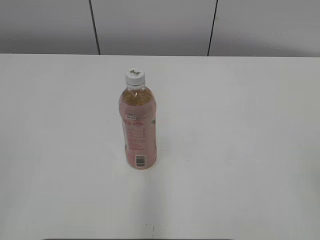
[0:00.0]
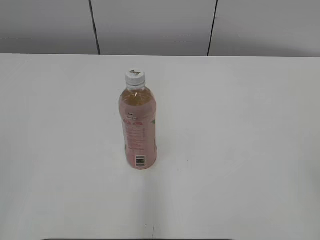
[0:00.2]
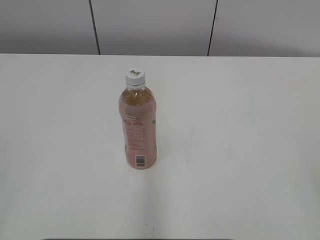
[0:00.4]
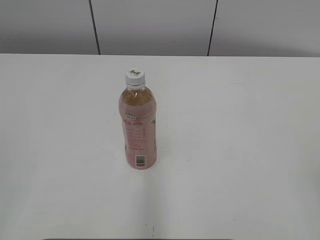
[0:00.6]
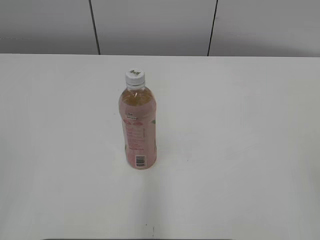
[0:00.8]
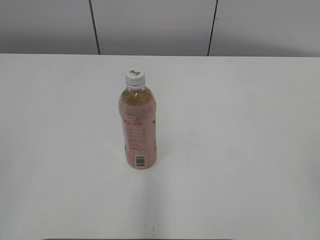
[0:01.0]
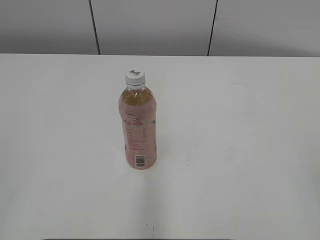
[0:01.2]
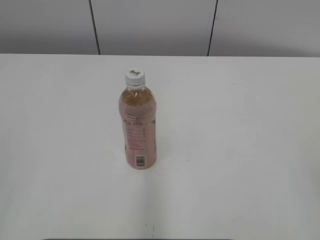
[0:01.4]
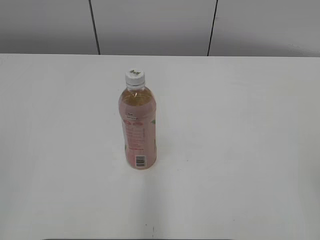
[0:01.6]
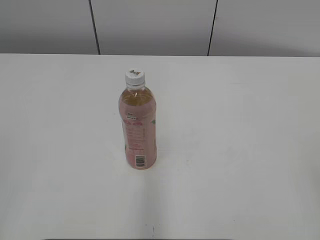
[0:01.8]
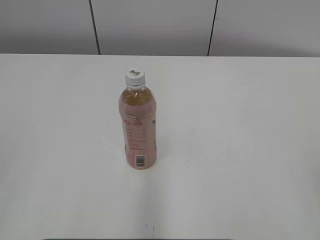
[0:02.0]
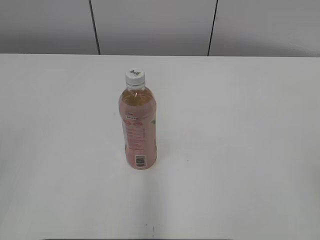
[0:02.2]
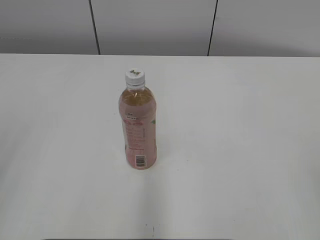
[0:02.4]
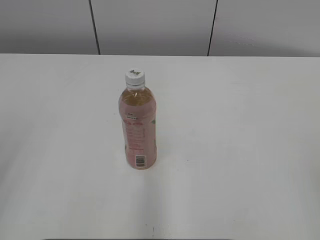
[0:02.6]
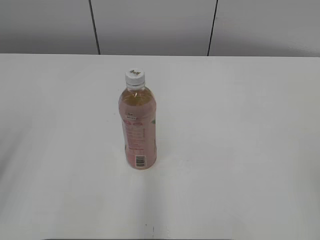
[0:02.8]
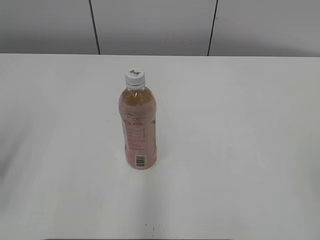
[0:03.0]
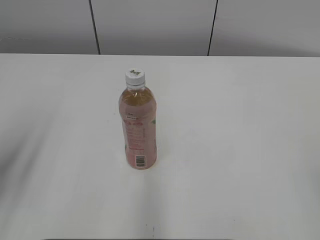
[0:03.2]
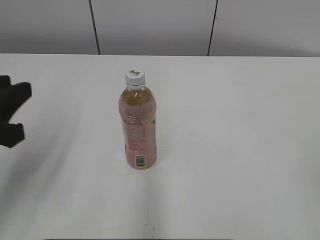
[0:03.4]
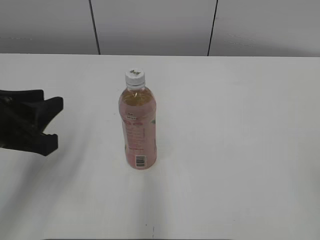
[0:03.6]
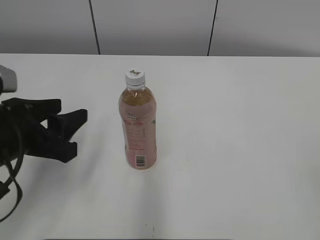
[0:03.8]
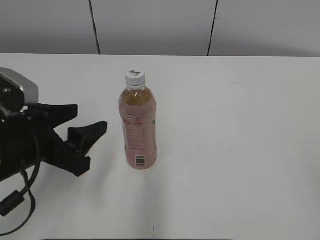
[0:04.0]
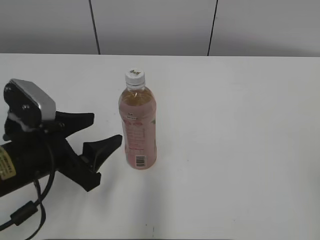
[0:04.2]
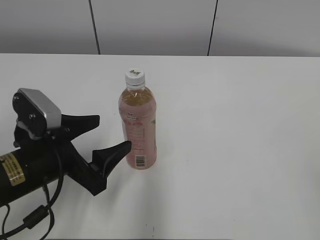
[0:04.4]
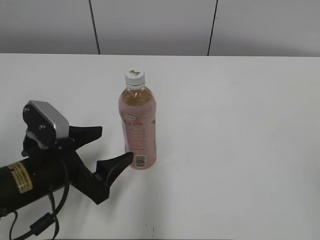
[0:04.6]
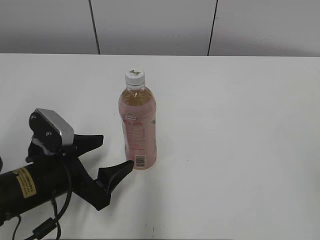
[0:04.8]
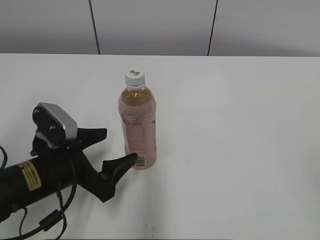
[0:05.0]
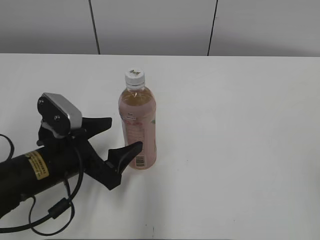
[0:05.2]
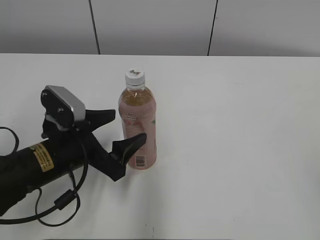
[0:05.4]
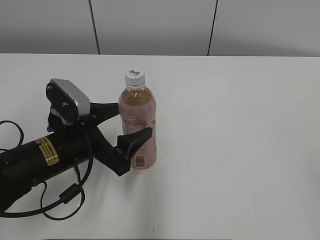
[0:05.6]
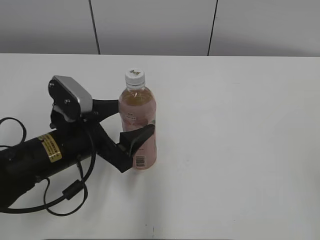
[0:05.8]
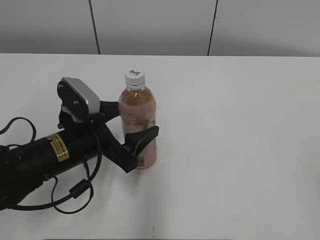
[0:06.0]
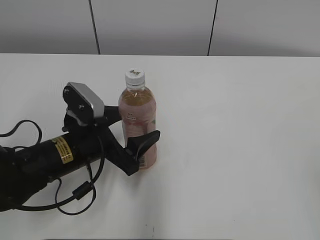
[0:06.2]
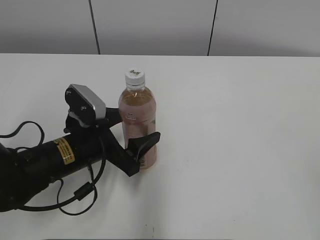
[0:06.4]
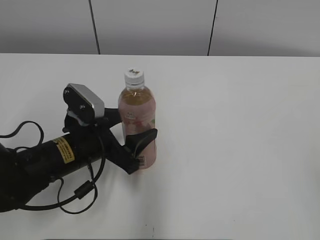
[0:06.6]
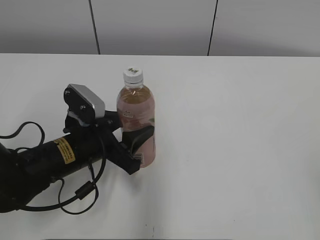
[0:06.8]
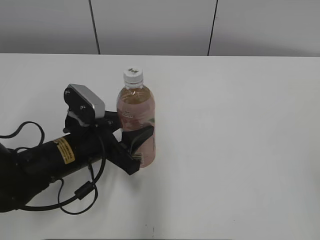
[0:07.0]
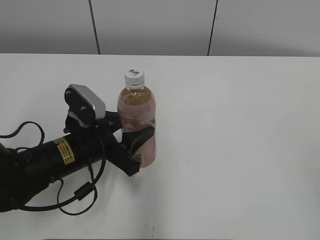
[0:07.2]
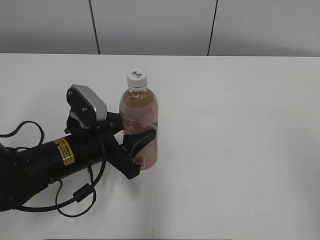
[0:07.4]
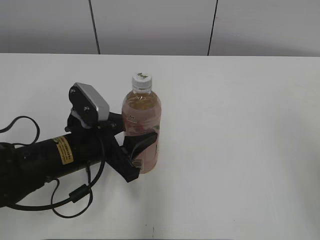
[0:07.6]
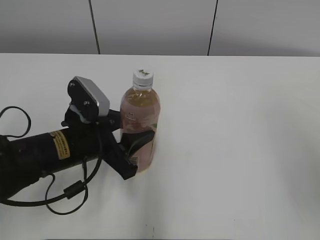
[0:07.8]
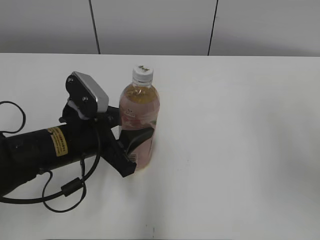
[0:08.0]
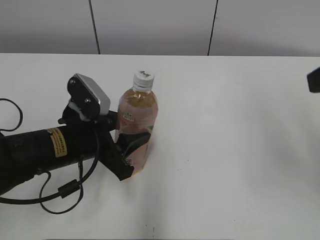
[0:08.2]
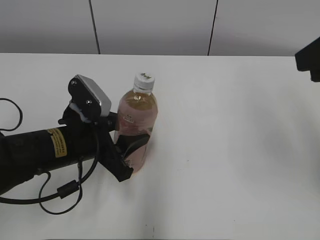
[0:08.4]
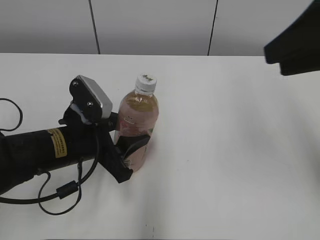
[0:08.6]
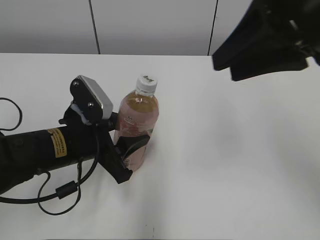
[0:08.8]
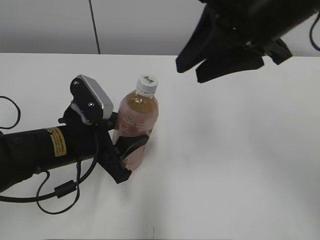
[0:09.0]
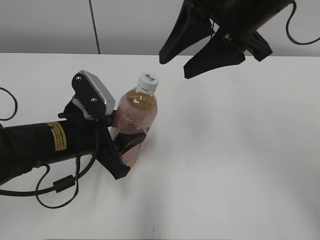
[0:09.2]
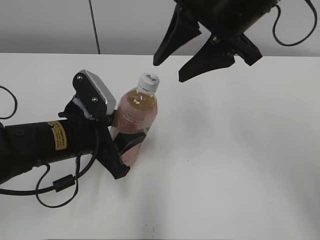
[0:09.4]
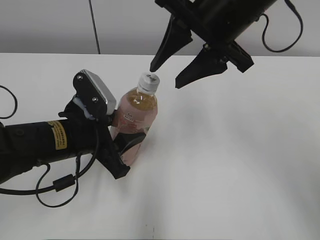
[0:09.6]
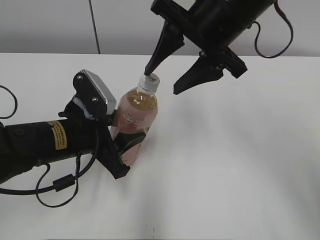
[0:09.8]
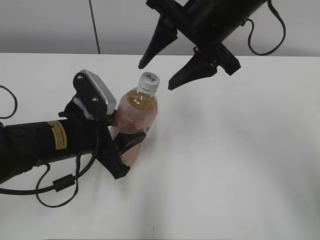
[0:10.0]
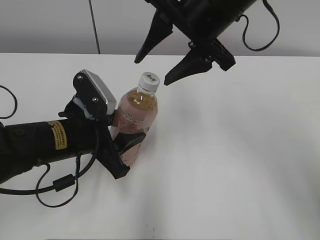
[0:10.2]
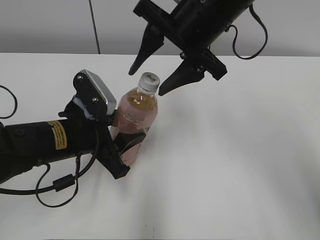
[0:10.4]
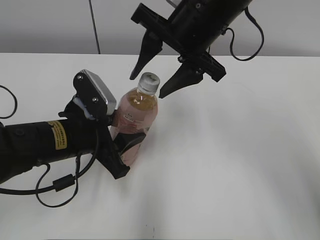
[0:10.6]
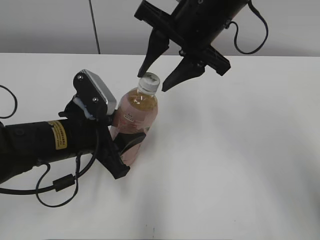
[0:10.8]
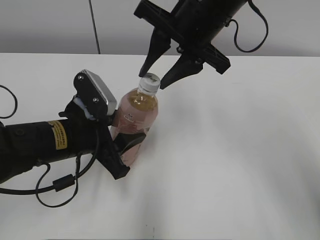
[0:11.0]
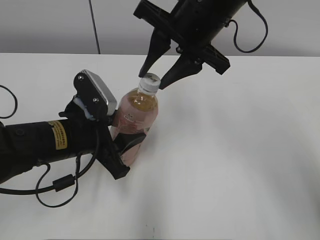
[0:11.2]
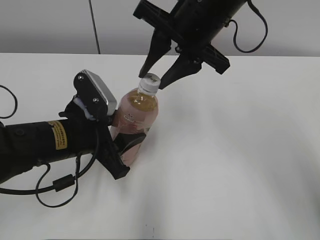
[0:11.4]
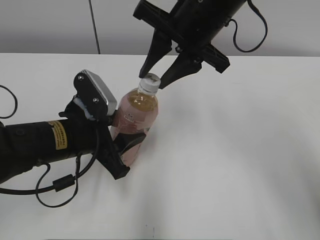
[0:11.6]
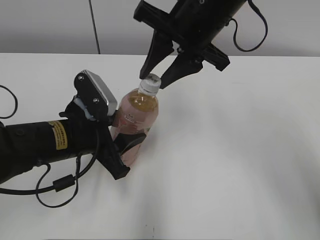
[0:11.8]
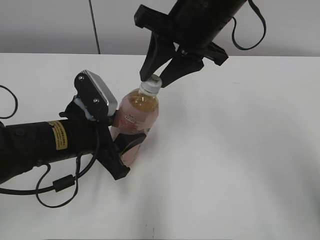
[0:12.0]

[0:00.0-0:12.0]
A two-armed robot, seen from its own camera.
Step, 0:00.0 to 0:06.8: Grab the Peach Oolong Tea with the left hand.
0:03.0 to 0:04.4: The left gripper travels to the right, downward and forward by roughly 20 cm, and opens.
0:04.4 to 0:06.0: The left gripper changes place by roughly 5 cm.
0:06.0 to 0:07.6: The left gripper closes. The right gripper moves forward and upward, approximately 10 cm.
0:07.6 to 0:09.0: The right gripper shifts some 25 cm forward and to the left.
0:09.0 to 0:10.4: The right gripper goes roughly 10 cm forward and to the left, and opens its fingers.
0:10.4 to 0:12.0: The right gripper closes.

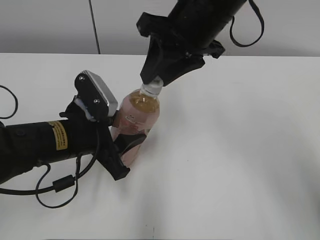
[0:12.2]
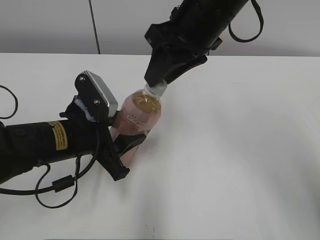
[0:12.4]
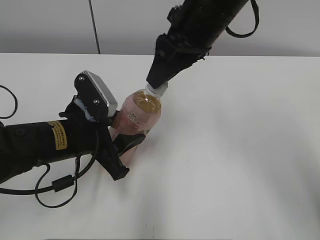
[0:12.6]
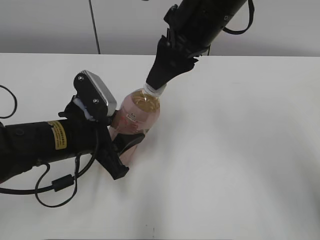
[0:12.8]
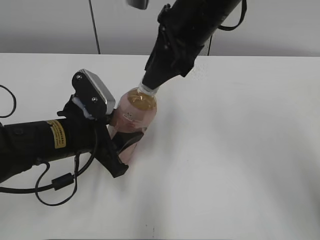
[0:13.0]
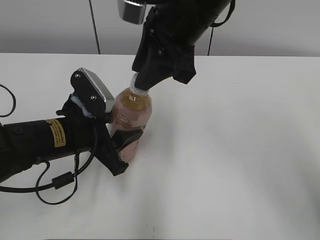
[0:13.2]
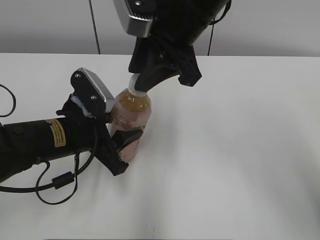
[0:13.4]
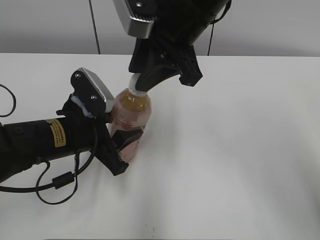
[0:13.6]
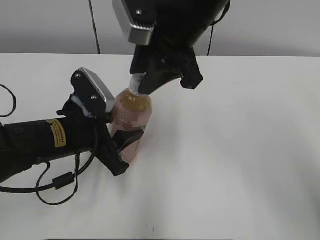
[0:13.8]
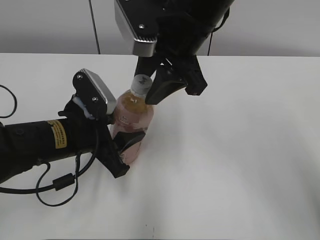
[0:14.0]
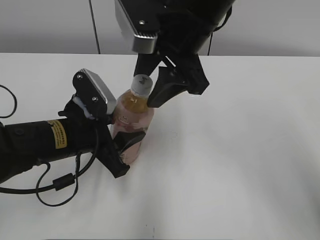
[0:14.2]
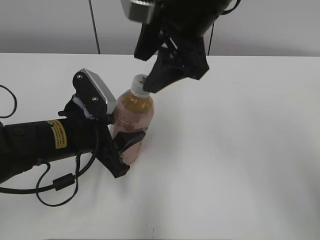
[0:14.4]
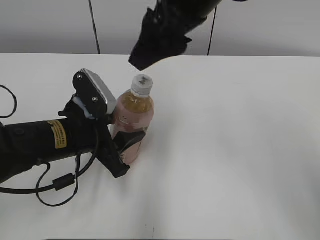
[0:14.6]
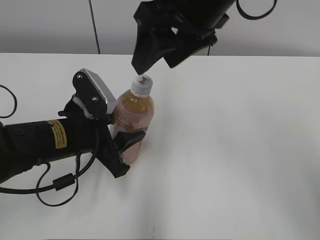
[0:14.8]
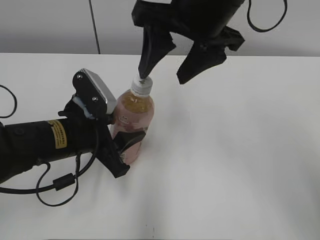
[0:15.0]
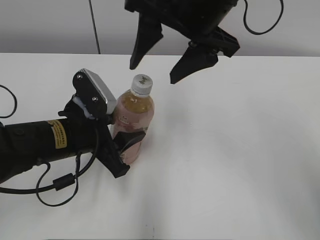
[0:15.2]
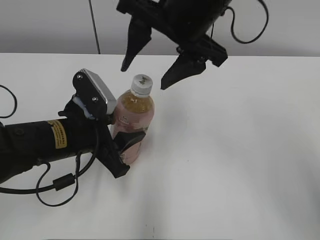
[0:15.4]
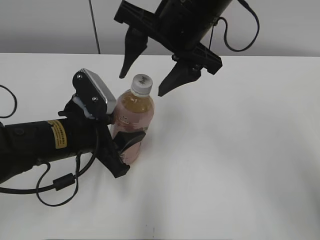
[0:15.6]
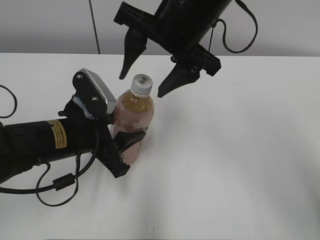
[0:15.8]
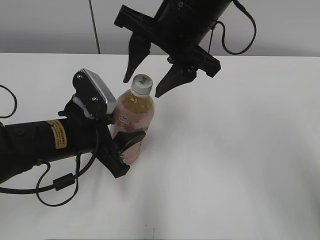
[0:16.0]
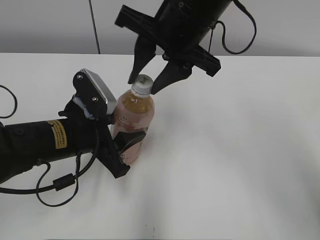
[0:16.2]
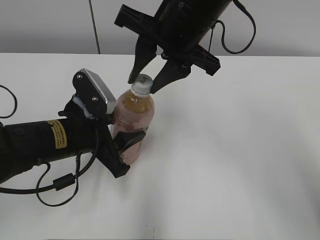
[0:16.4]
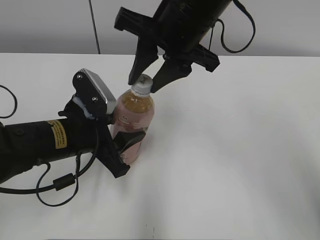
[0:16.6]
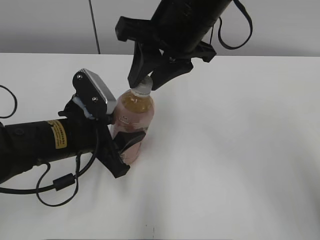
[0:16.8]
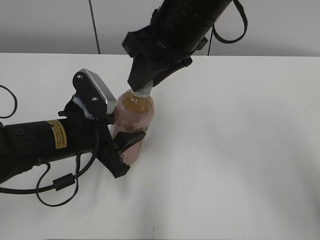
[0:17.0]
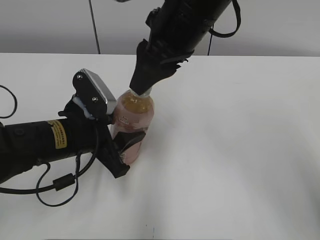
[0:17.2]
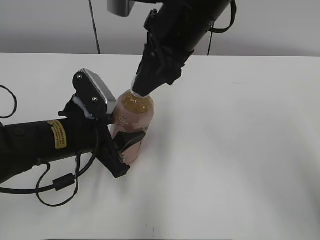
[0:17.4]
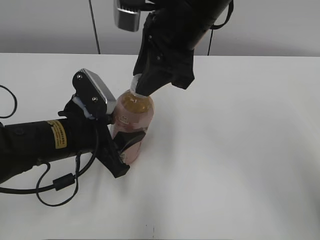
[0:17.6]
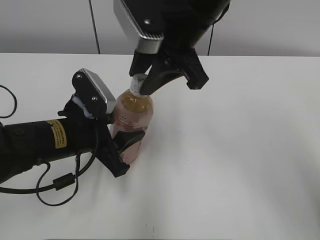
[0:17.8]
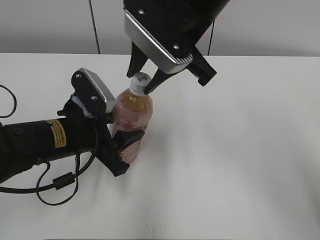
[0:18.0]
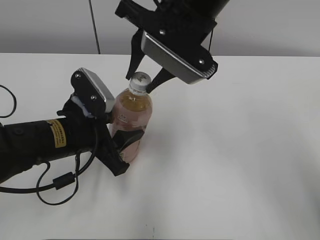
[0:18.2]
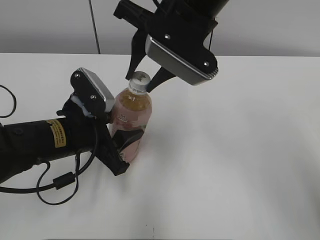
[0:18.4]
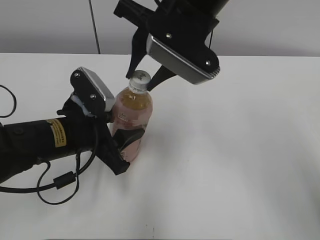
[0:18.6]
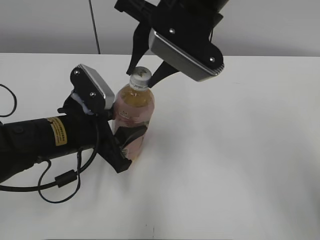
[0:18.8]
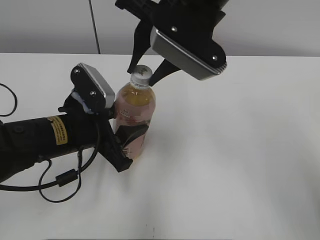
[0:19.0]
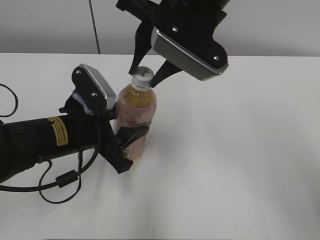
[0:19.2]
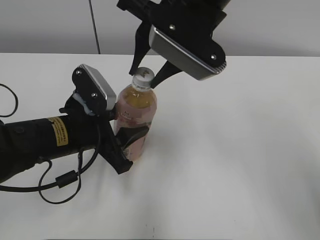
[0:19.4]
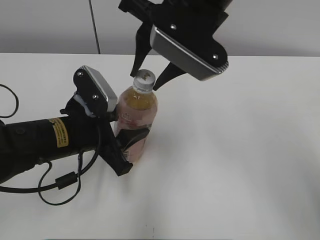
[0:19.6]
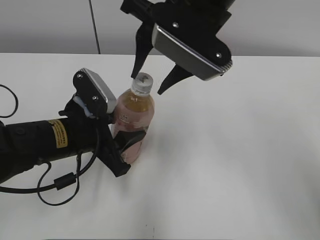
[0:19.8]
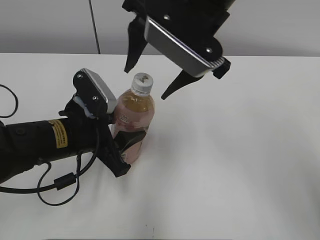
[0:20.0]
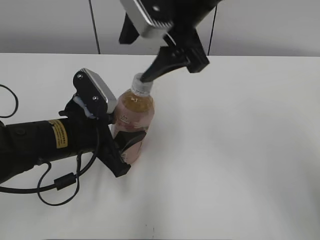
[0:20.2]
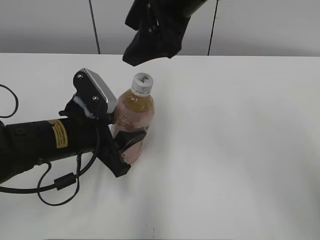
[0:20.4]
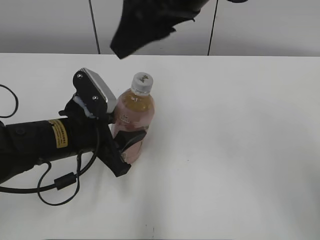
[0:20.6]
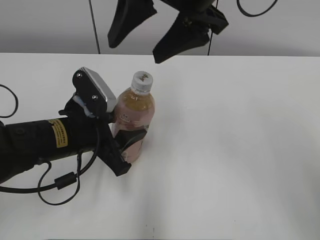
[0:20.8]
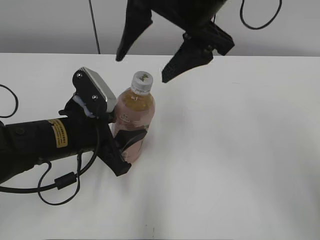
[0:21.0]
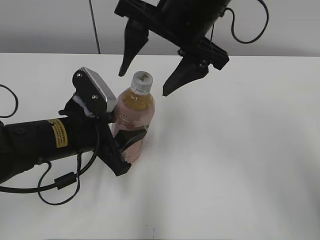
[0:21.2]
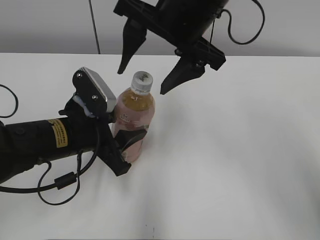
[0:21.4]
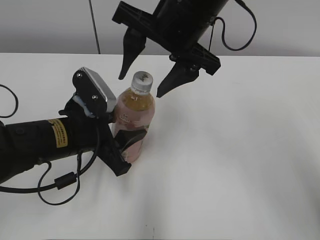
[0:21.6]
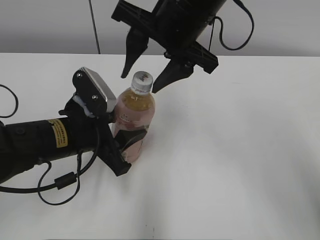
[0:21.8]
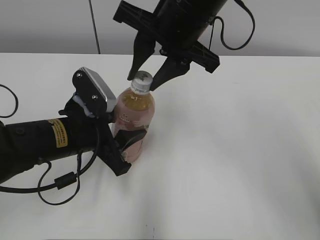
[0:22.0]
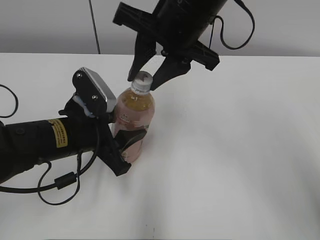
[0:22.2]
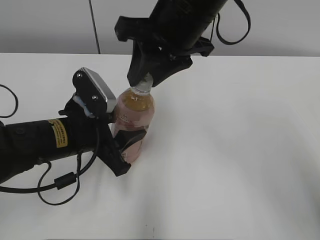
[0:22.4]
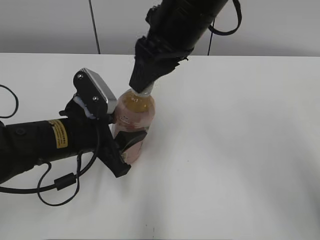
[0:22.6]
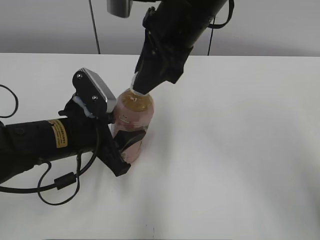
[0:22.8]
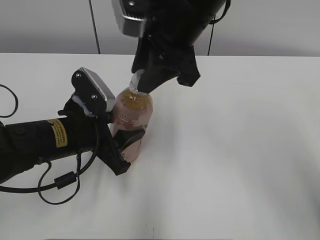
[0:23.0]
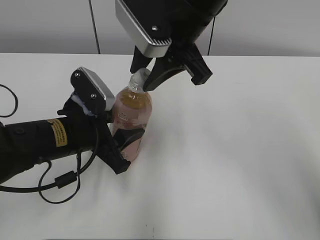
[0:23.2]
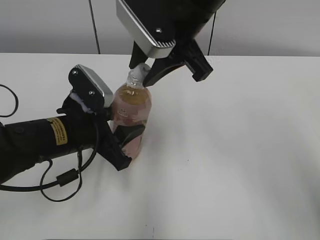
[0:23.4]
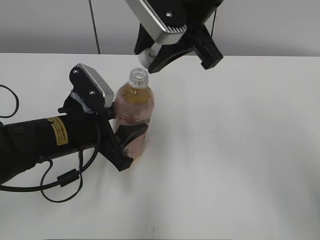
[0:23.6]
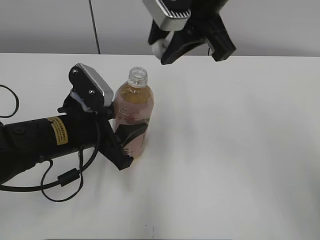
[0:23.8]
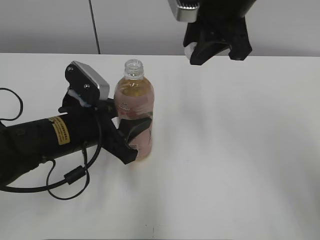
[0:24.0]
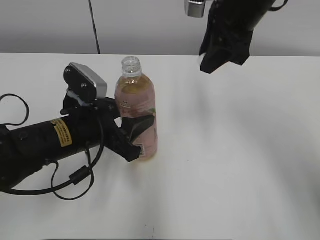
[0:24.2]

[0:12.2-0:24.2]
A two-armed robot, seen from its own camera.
0:13.8 to 0:15.2: The right gripper opens.
0:15.2 to 0:16.6: The right gripper closes its fingers.
0:18.2 to 0:19.8: The grippers stay close to where they were, moving slightly.
0:19.8 to 0:21.2: The right gripper opens its fingers.
0:21.2 to 0:22.6: The right gripper closes its fingers.
0:22.6 to 0:24.2: The right gripper travels to the right by roughly 10 cm.
